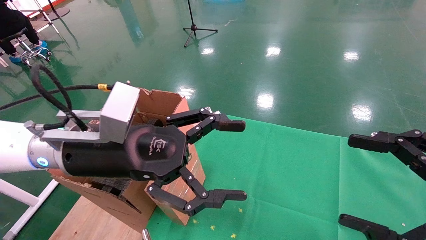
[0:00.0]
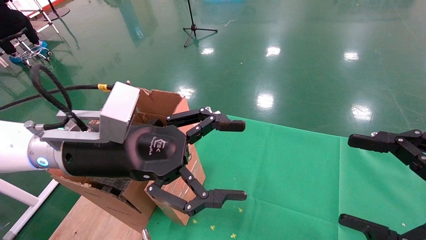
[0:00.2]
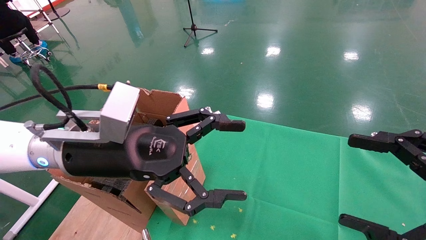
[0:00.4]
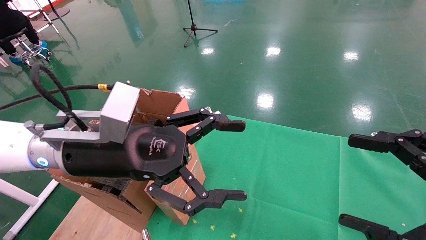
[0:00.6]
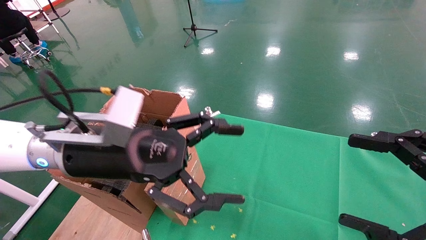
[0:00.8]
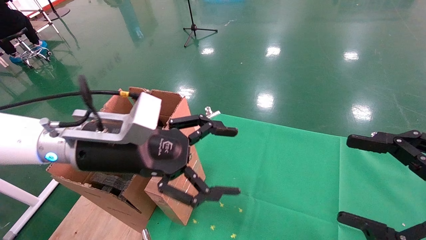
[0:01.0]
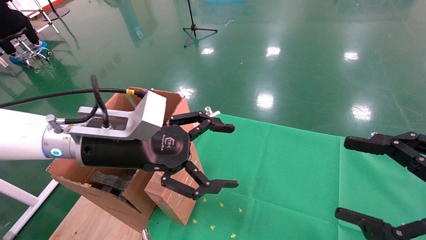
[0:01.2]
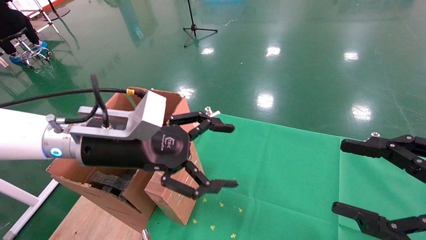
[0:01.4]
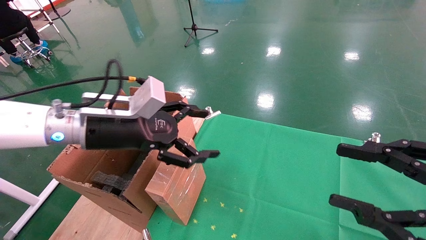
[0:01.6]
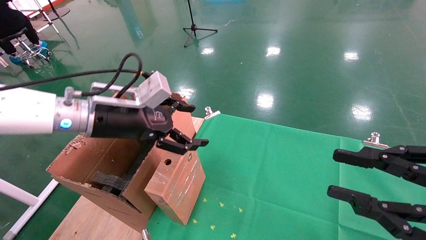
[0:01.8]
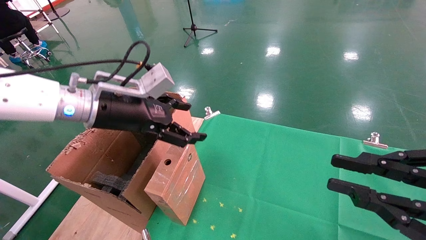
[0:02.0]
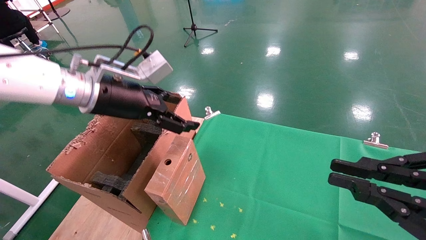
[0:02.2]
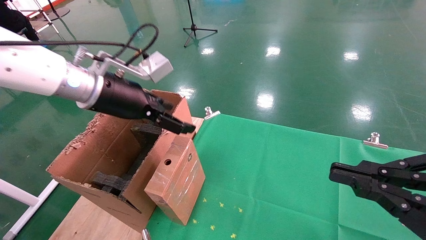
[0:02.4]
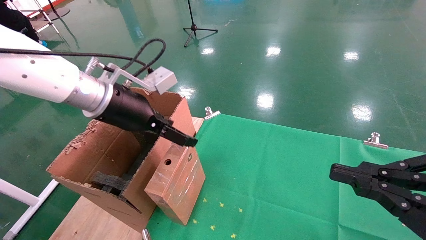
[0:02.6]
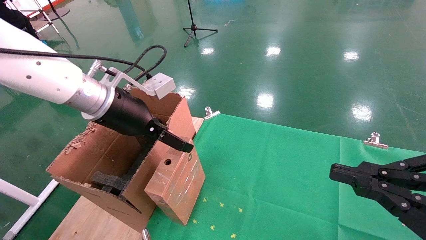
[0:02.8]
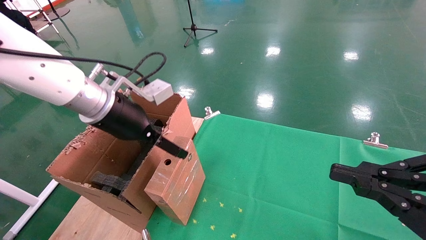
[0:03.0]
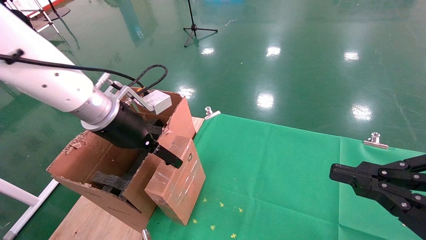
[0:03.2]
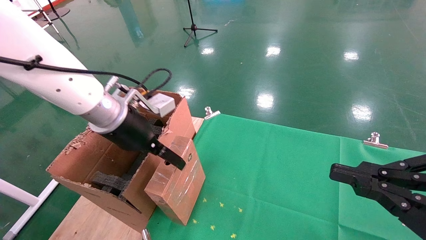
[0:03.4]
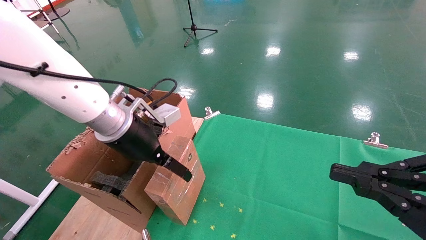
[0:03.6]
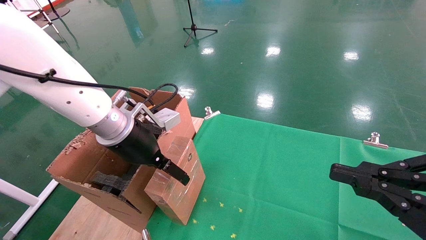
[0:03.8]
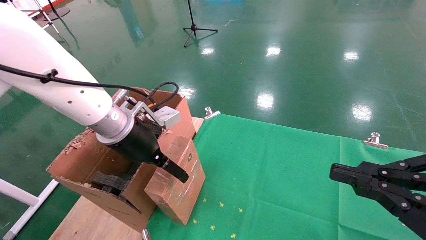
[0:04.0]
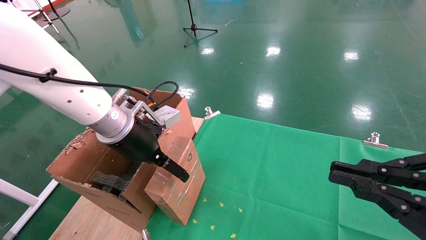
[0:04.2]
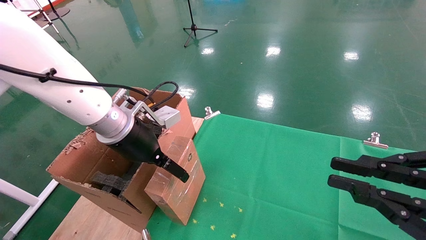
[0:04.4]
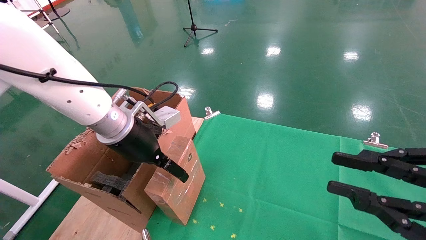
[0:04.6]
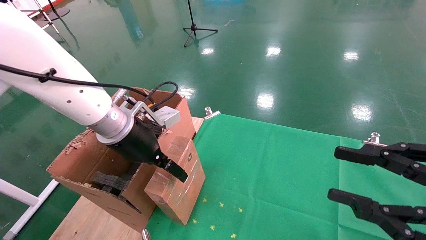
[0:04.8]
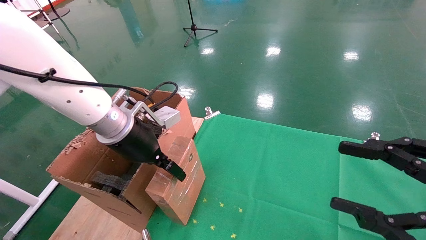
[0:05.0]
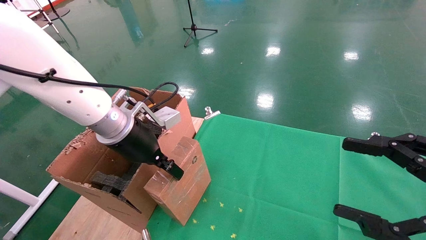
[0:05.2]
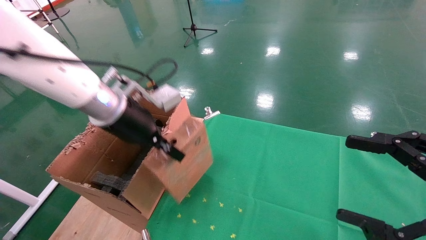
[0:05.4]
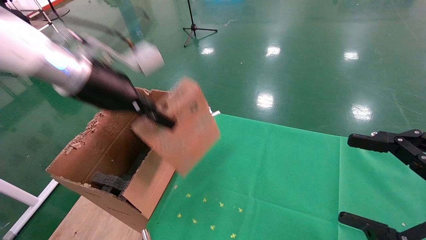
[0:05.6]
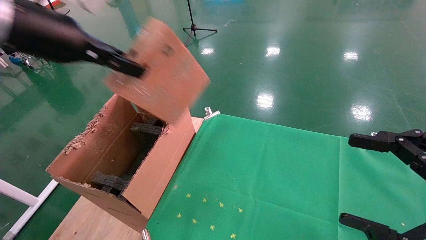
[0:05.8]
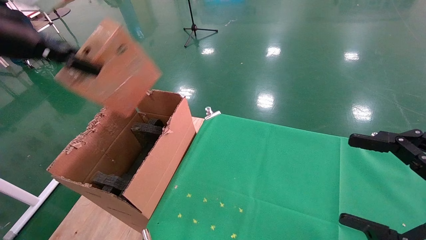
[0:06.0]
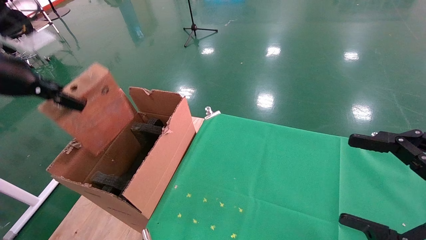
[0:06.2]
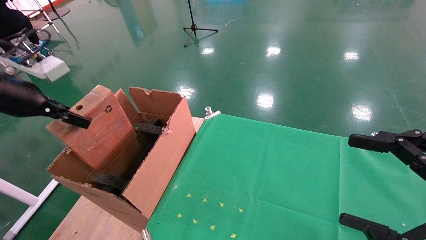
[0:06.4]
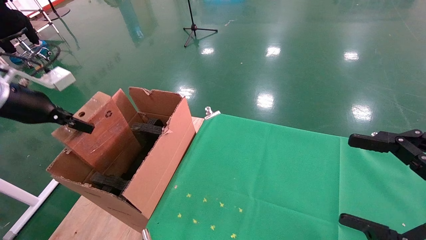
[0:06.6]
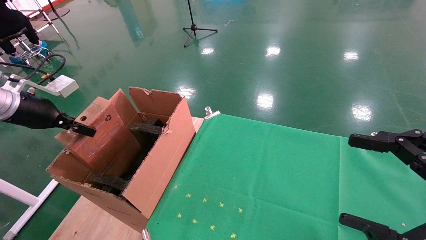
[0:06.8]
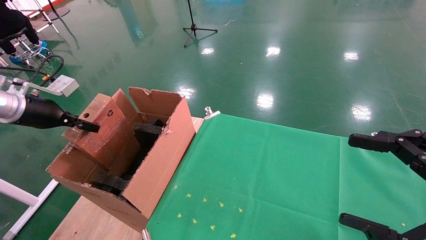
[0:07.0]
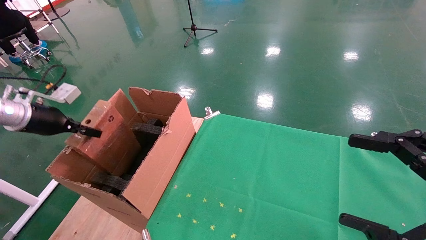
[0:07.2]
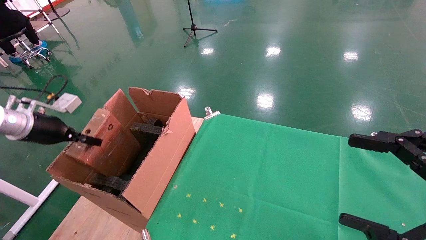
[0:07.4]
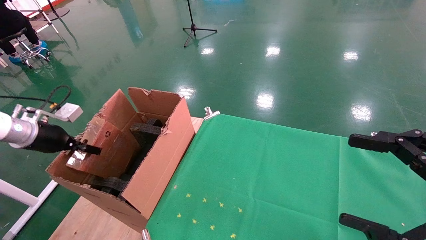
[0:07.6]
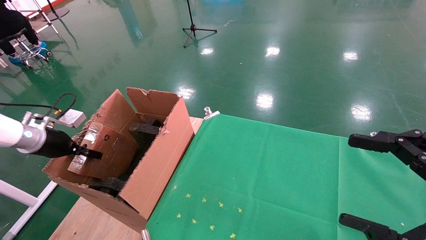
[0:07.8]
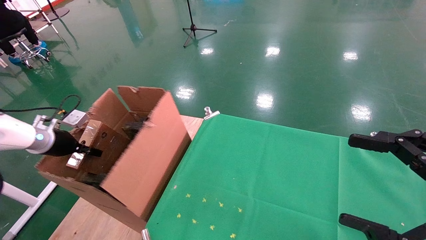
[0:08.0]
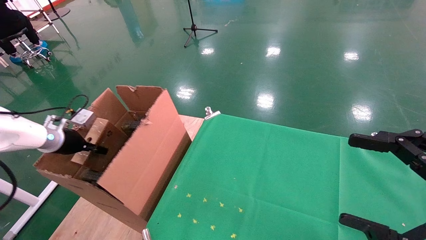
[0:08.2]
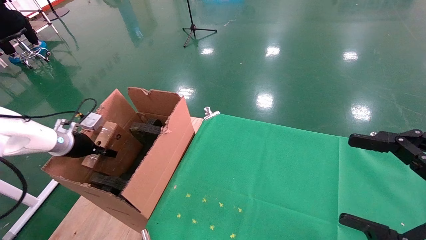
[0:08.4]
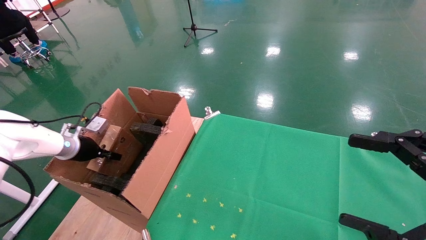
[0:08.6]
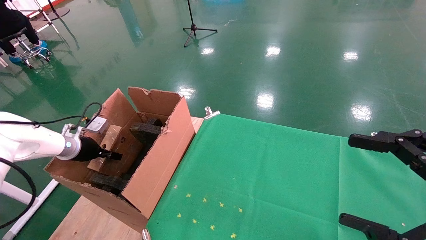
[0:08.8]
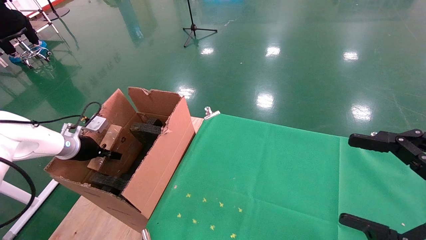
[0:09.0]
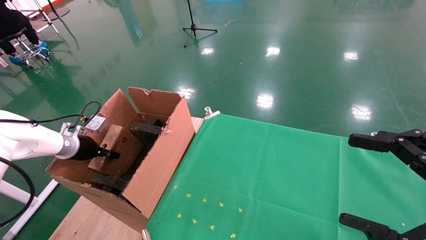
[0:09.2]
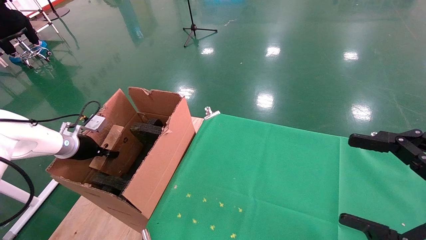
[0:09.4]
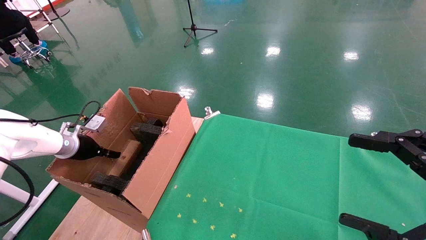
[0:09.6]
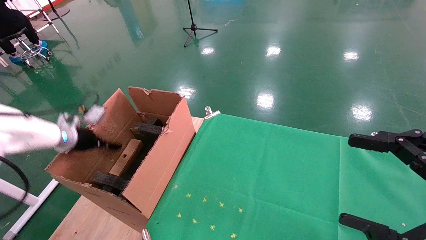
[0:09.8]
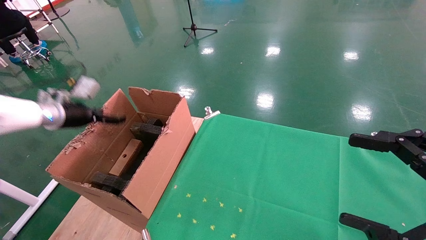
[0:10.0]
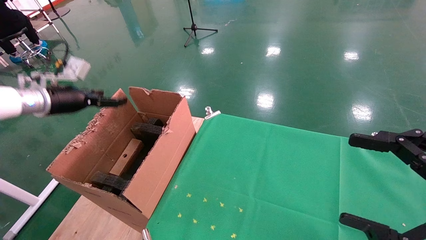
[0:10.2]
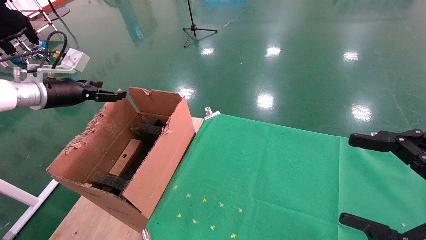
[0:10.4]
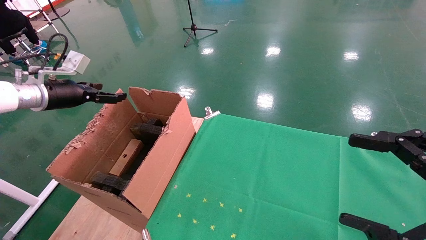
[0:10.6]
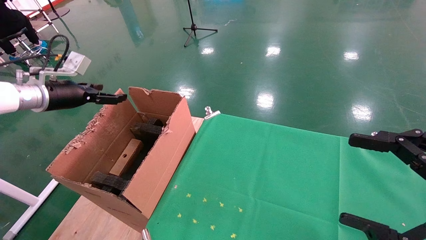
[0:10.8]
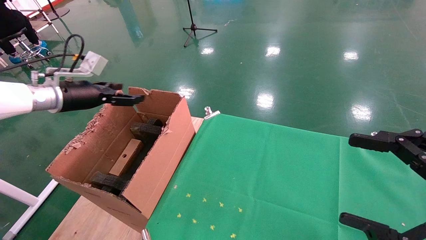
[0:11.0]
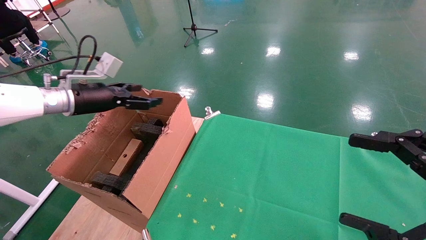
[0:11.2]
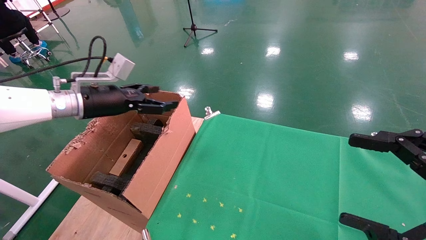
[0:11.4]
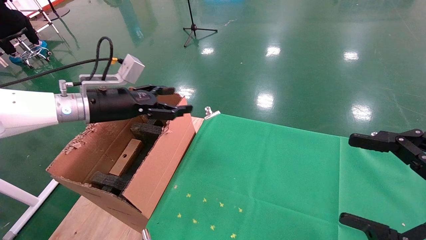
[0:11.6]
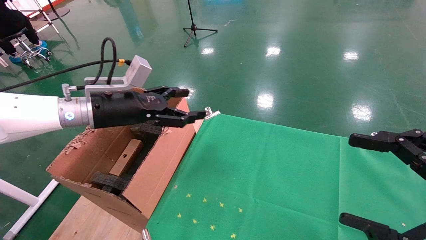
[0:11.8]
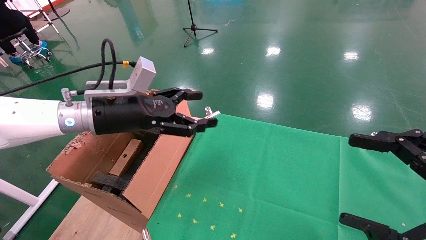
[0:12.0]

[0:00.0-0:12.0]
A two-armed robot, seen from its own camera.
Task of the whole recording: using a robotic arm to pick up a cardboard box and palace it the carton.
Step, 0:01.2 to 0:05.2: Pick up the mouse and the power cord paper box.
Step, 0:05.4 to 0:10.2: Place the mouse and the power cord paper box into the container.
0:00.0 to 0:01.6: The right gripper closes, while the left gripper travels forward by about 5 cm.
0:01.6 to 0:03.0: The right gripper closes.
0:03.0 to 0:04.4: The grippers move only a little.
0:04.4 to 0:06.0: The left gripper goes some 20 cm to the left and upward, and closes up. The right gripper opens up.
0:06.0 to 0:07.6: The left gripper is displaced downward and to the left by approximately 25 cm.
0:07.6 to 0:09.0: The left gripper heads downward and forward, covering roughly 10 cm.
0:09.0 to 0:10.4: The left gripper heads upward, covering roughly 15 cm, and opens up.
0:10.4 to 0:12.0: The left gripper is displaced to the right by roughly 20 cm.

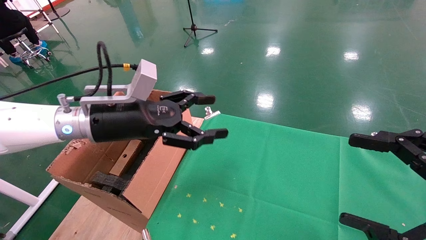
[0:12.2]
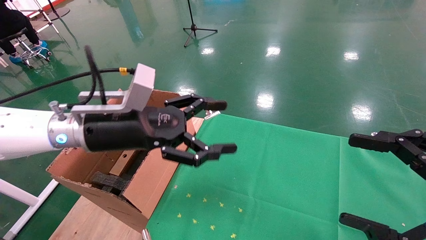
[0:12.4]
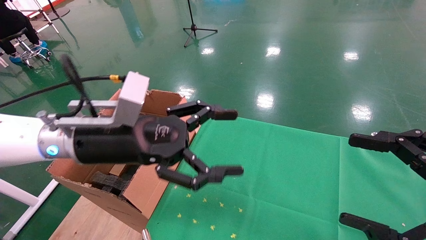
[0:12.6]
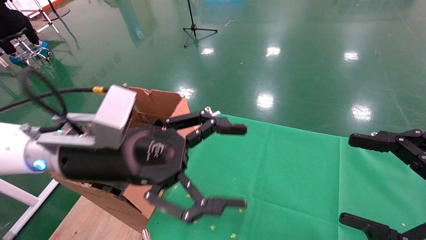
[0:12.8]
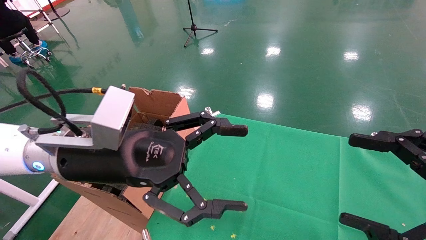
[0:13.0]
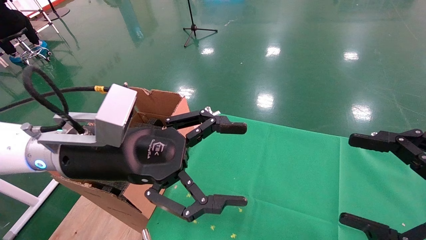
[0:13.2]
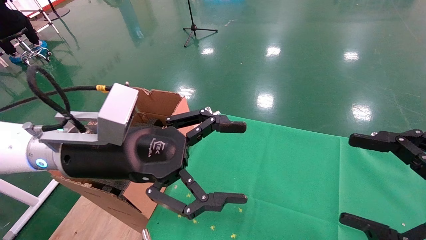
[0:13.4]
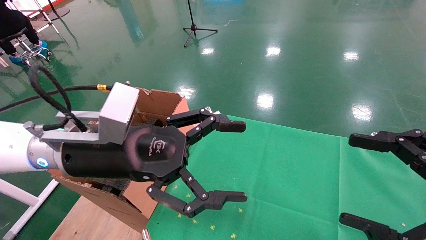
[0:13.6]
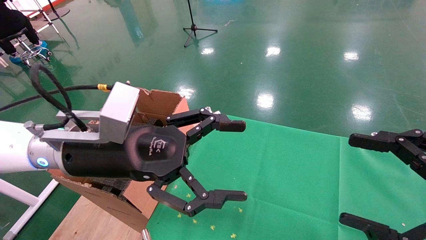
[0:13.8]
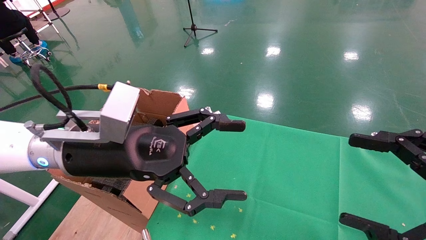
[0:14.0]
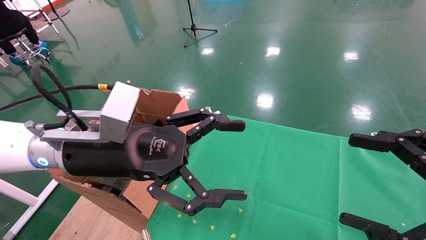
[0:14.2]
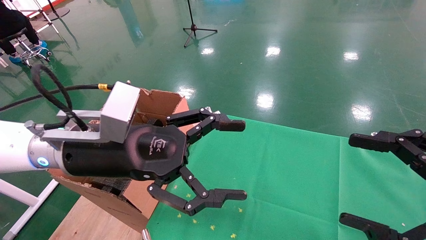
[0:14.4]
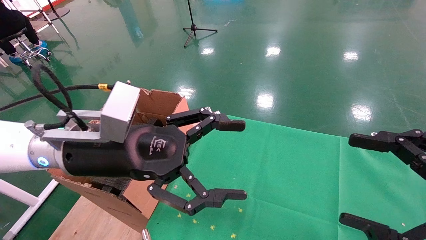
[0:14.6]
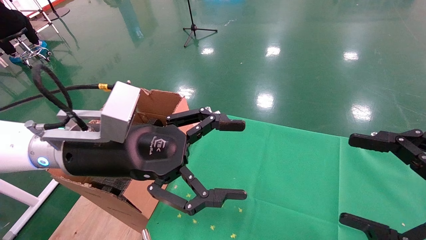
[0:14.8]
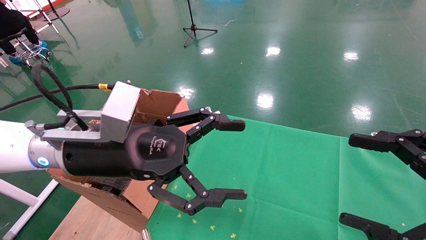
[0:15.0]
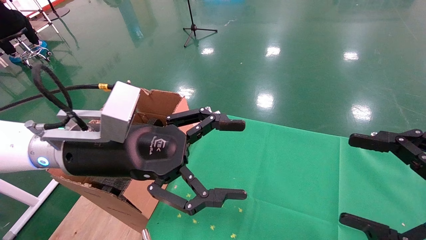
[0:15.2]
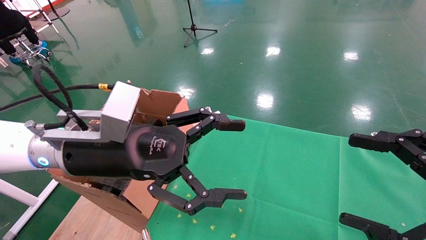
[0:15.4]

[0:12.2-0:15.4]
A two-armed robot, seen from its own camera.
Task of the whole recording: using a robotic arm to pick up a cardboard box and palace it the carton.
0:12.2 to 0:13.8: The left gripper travels backward by about 5 cm.
0:13.8 to 0:15.4: Both grippers stay put.

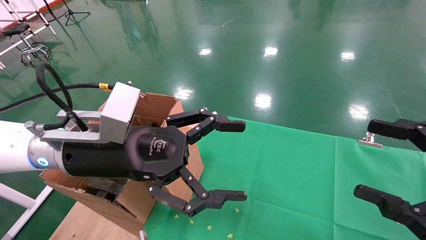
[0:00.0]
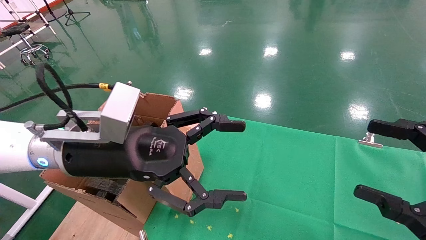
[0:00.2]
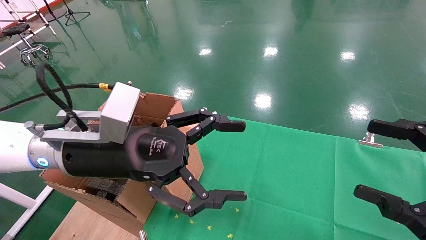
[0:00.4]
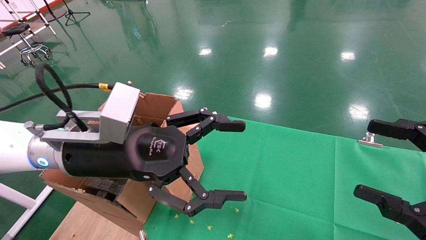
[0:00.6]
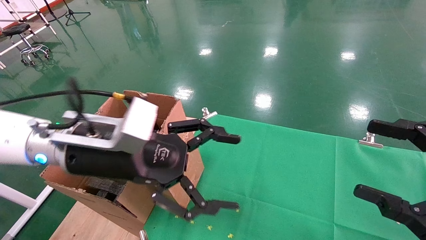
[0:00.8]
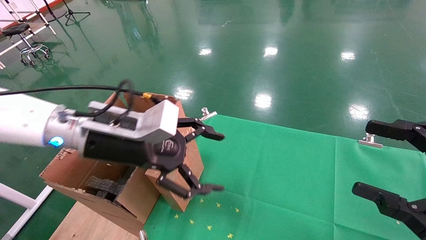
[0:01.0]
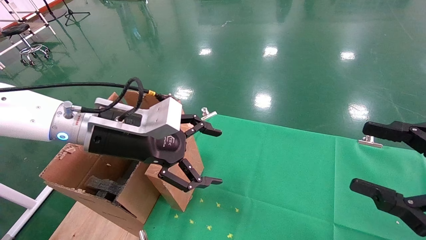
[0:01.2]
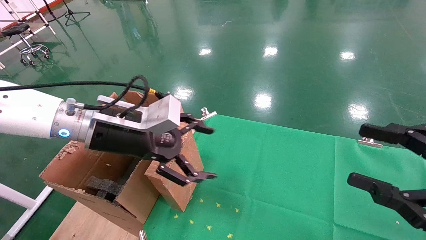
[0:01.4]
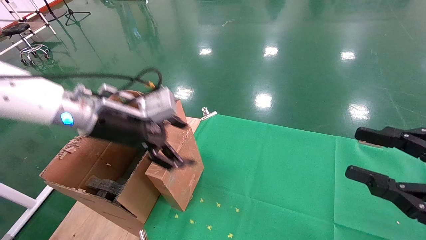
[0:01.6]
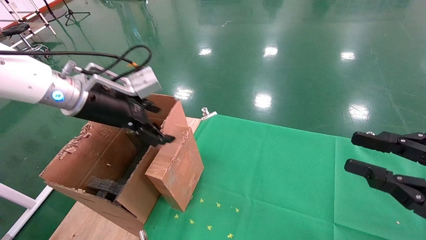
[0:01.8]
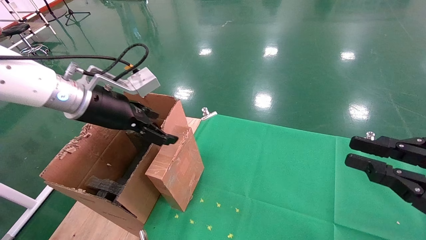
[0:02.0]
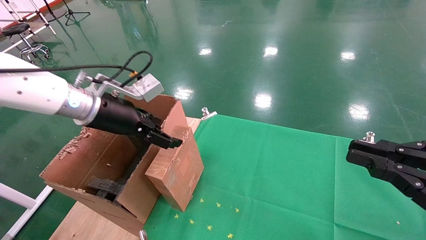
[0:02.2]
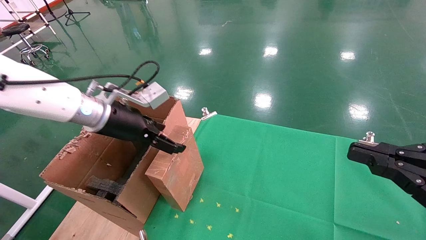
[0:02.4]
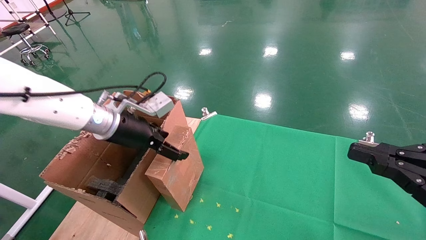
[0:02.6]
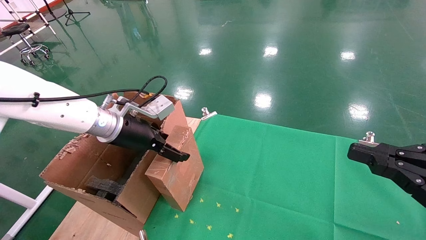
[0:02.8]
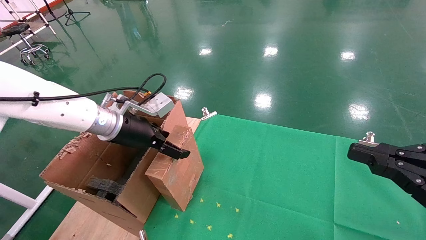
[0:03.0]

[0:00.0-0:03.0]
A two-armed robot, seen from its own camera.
Task of the whole recording: using a robotic arm to pick up a cardboard box and palace it the carton.
0:00.0 to 0:01.6: The right gripper closes up, while the left gripper is displaced forward and to the left by approximately 10 cm.
0:01.6 to 0:03.0: The right gripper closes up; the left gripper heads forward, covering approximately 5 cm.
